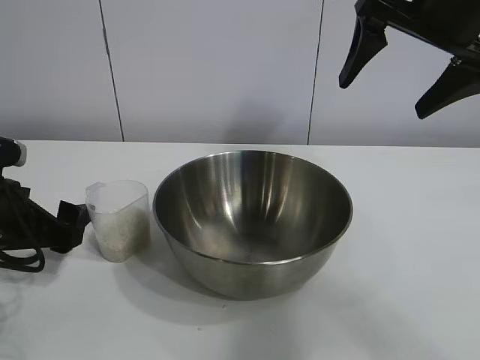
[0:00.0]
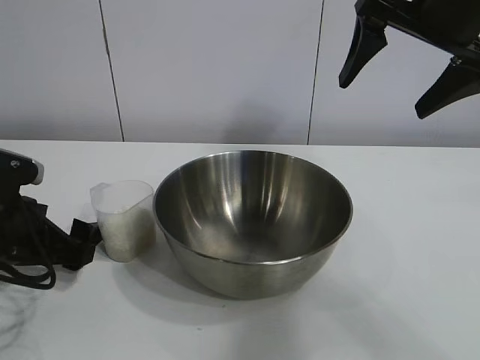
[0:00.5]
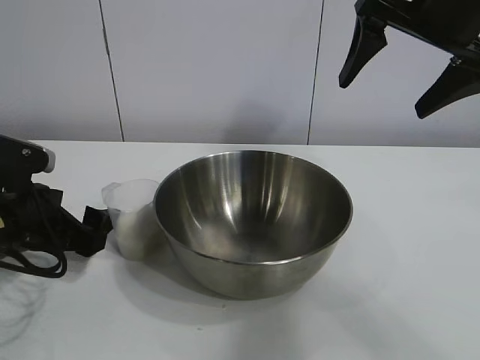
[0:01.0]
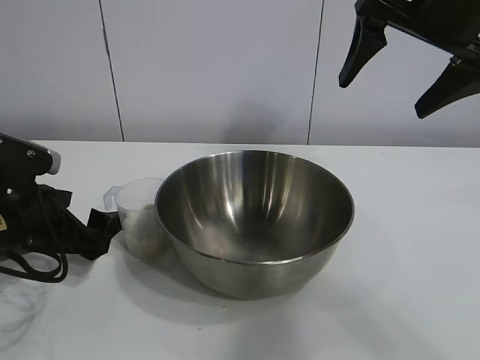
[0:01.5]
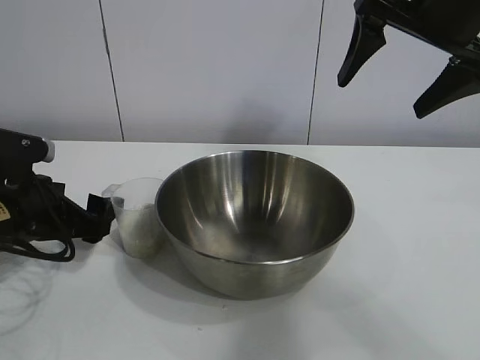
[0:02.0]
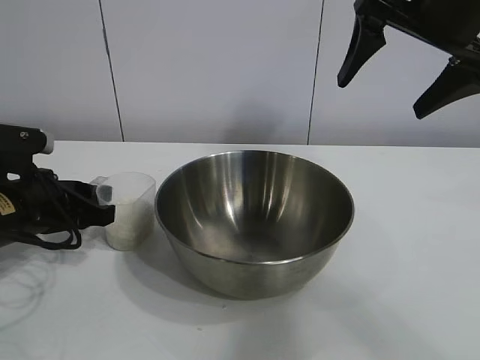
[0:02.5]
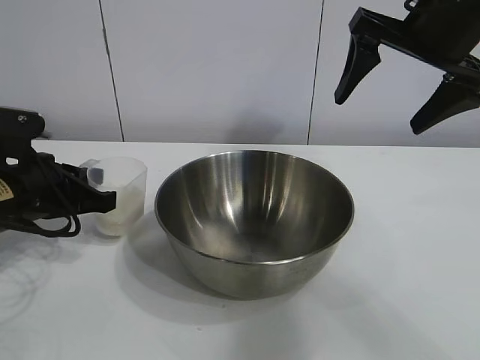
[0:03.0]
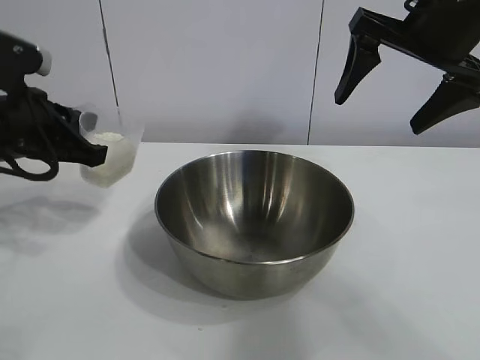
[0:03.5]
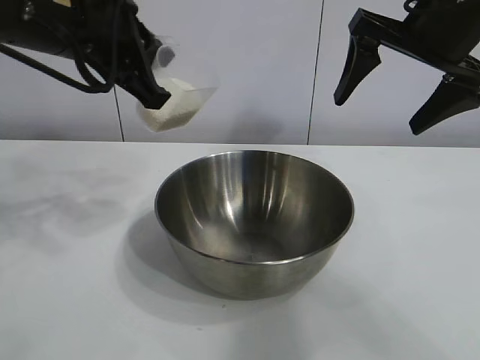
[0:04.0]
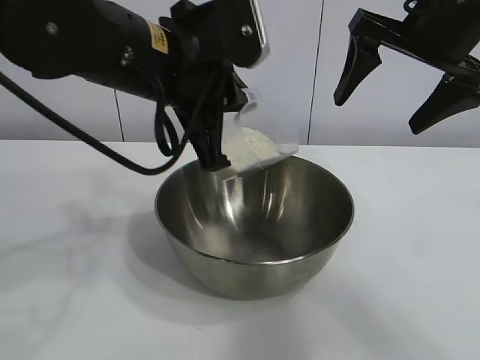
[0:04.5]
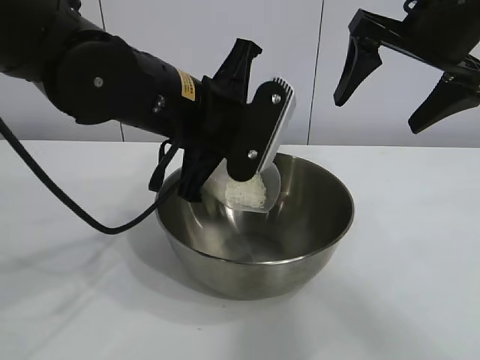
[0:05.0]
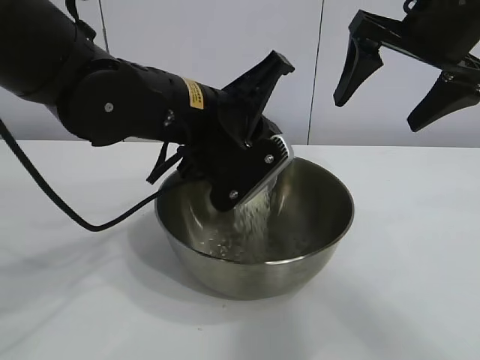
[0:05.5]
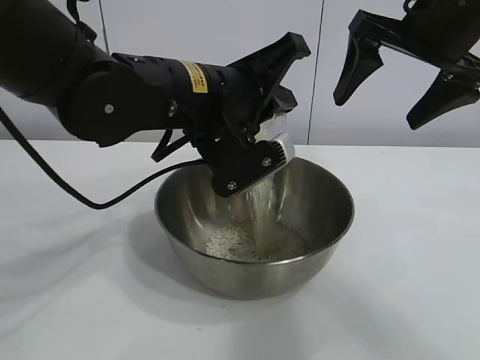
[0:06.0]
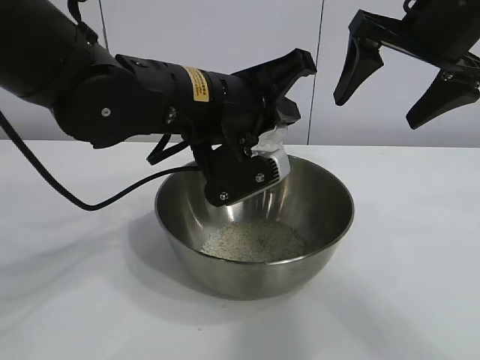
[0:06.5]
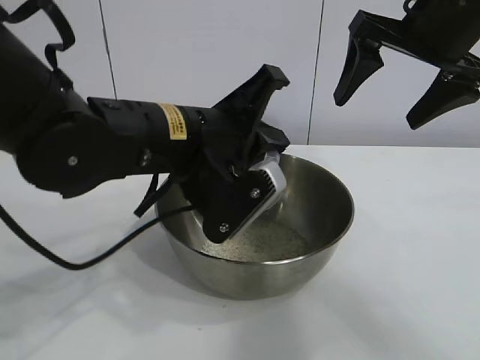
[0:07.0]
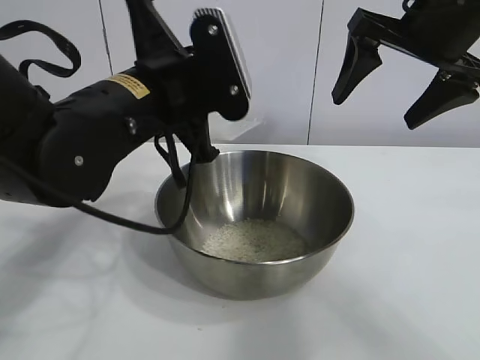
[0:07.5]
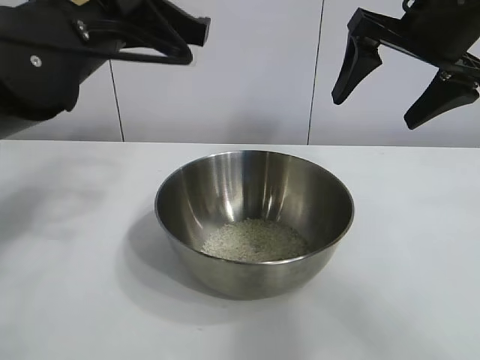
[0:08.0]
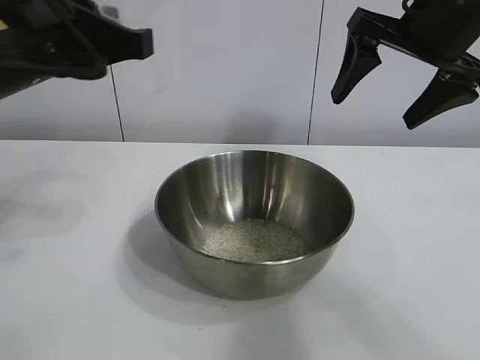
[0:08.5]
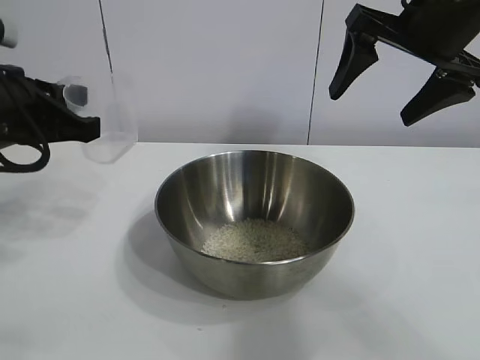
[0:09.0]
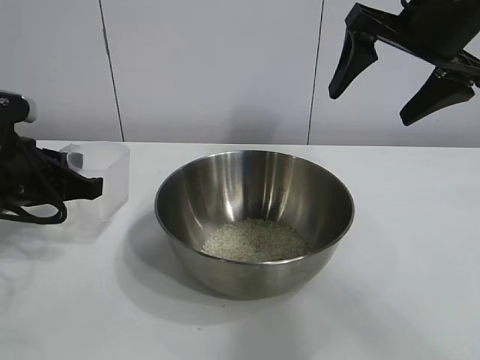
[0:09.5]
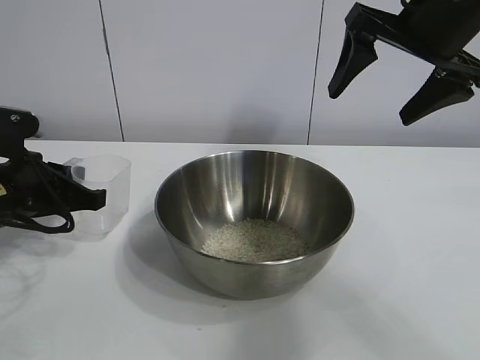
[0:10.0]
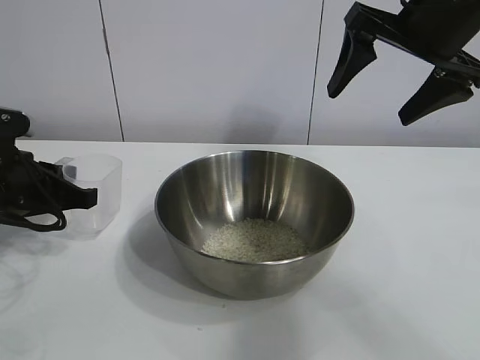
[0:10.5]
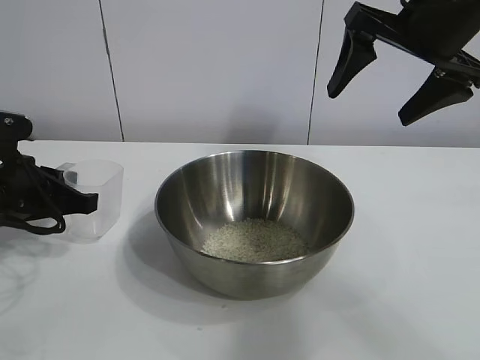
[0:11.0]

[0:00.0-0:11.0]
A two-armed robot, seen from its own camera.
Task of the whole recording: the right gripper grasp the rice container and place it in the center of the table, the left gripper grasp the rice scoop and pour the rice into the rice container.
Step, 0:00.0 to 0:02.5: Grasp the cup with rice in it with left gripper.
Step, 0:03.5 to 0:06.5: Pour the rice from the cup into the bowl with the left gripper.
